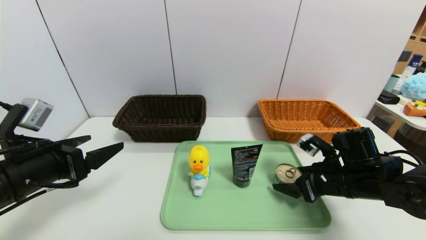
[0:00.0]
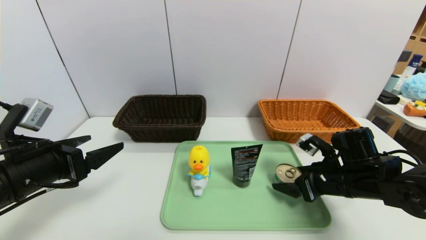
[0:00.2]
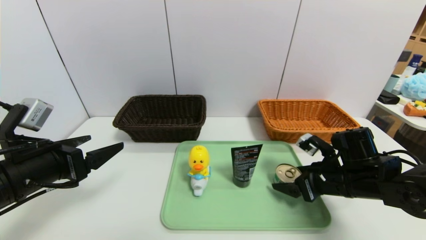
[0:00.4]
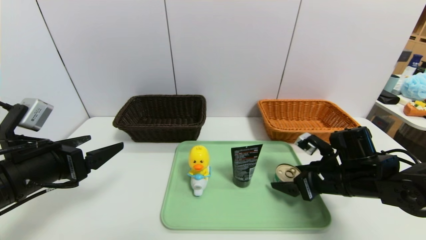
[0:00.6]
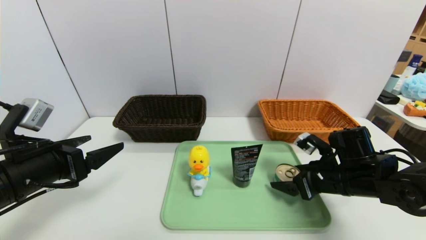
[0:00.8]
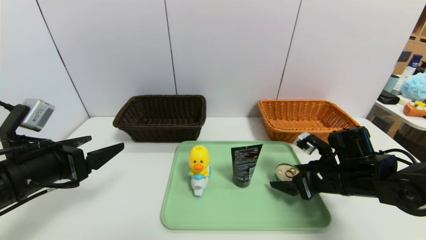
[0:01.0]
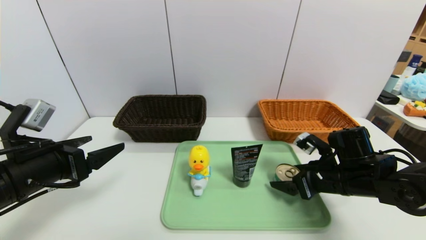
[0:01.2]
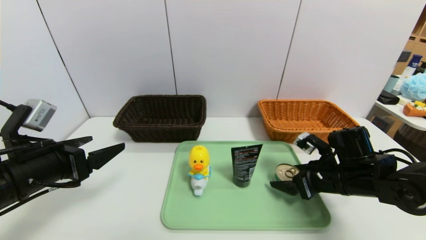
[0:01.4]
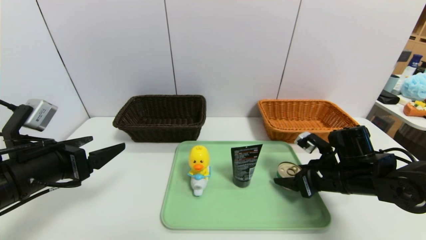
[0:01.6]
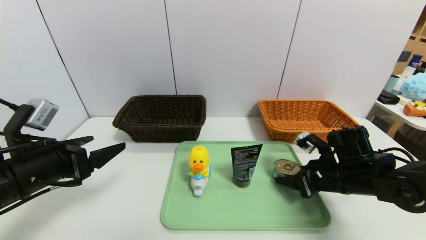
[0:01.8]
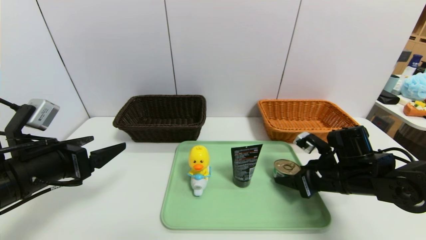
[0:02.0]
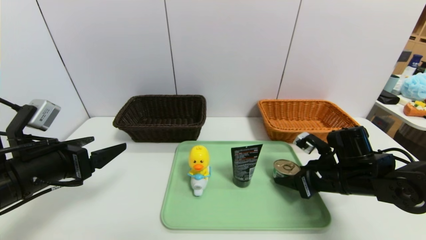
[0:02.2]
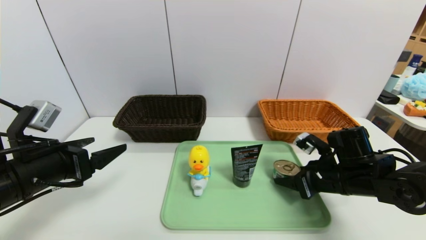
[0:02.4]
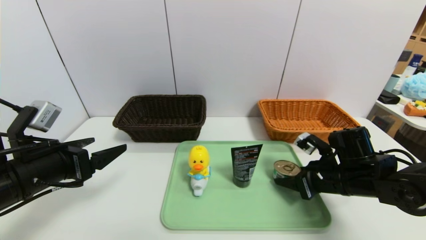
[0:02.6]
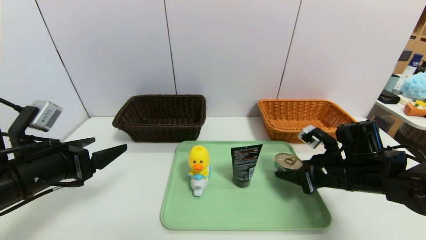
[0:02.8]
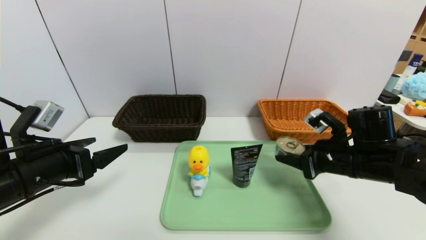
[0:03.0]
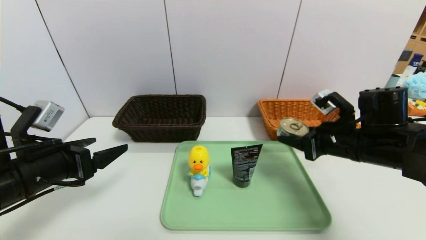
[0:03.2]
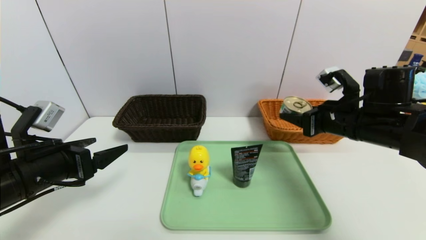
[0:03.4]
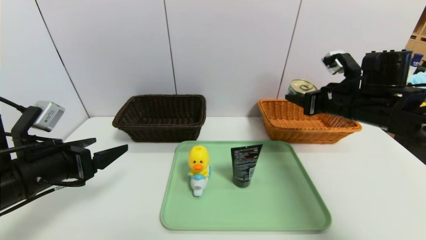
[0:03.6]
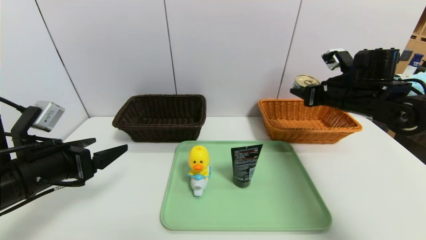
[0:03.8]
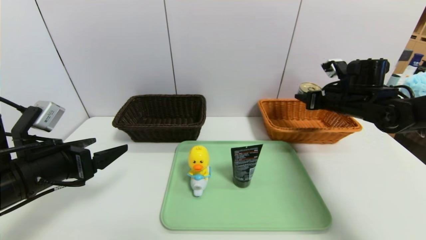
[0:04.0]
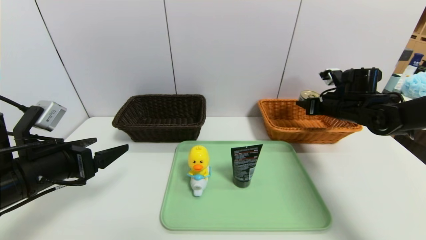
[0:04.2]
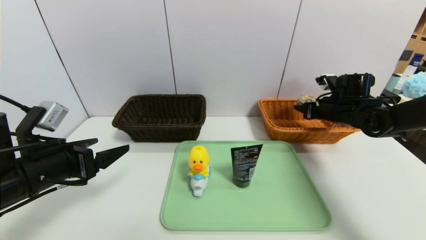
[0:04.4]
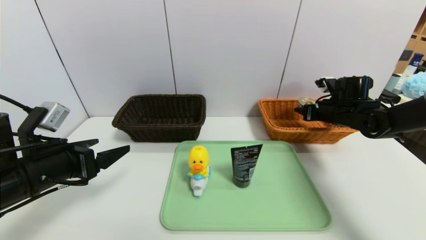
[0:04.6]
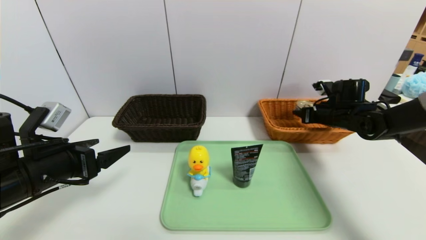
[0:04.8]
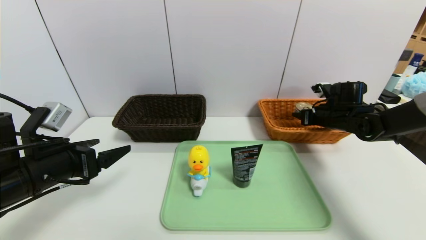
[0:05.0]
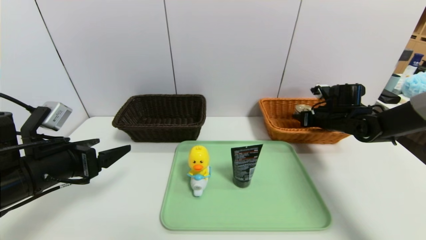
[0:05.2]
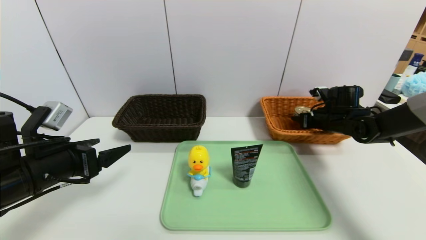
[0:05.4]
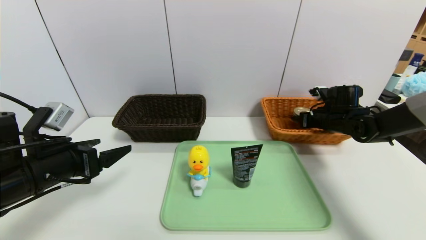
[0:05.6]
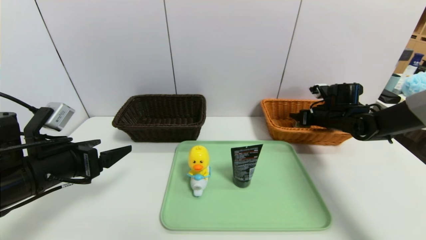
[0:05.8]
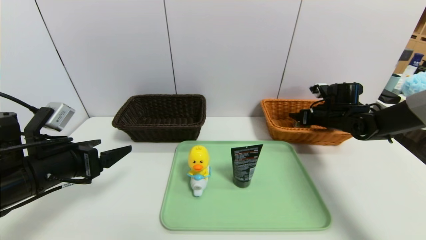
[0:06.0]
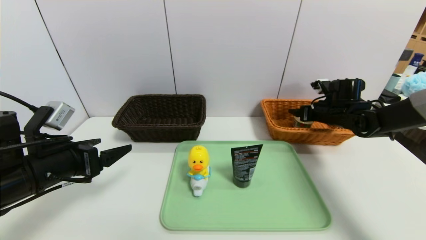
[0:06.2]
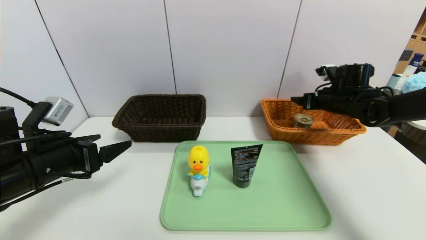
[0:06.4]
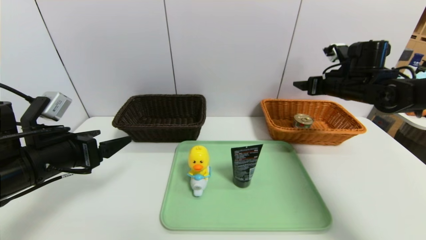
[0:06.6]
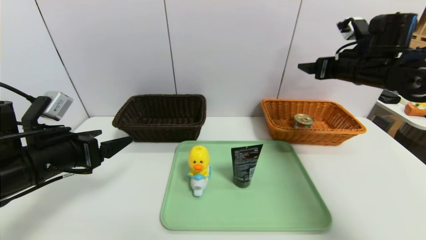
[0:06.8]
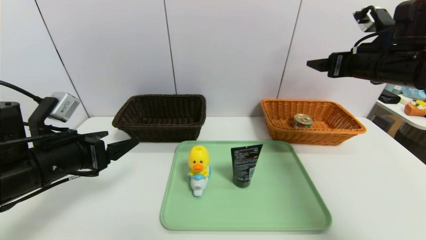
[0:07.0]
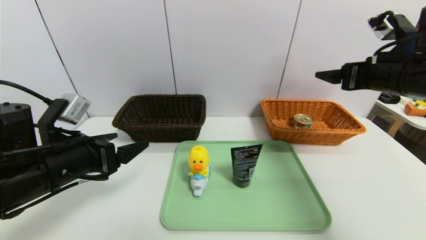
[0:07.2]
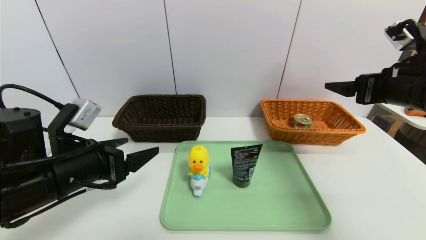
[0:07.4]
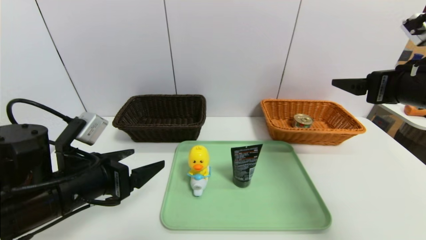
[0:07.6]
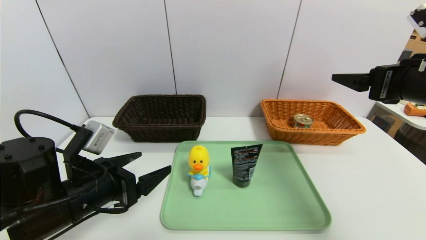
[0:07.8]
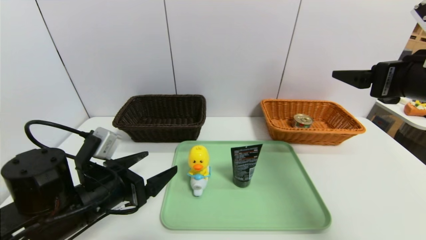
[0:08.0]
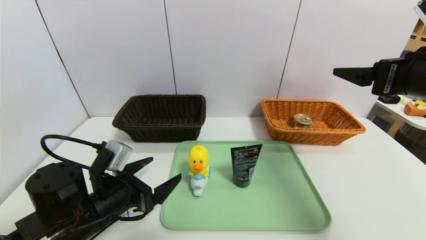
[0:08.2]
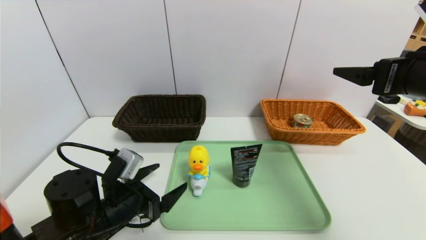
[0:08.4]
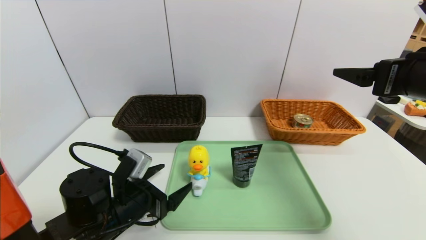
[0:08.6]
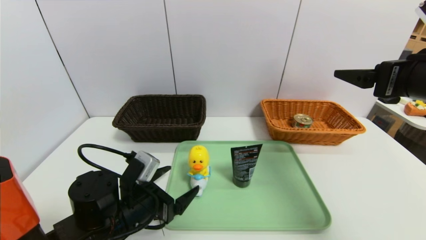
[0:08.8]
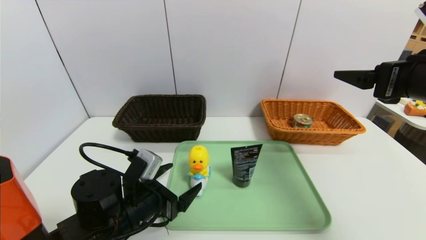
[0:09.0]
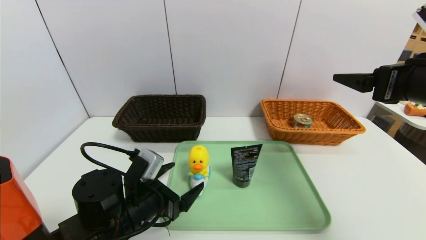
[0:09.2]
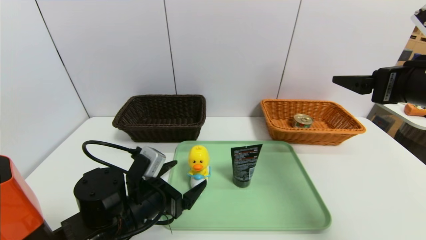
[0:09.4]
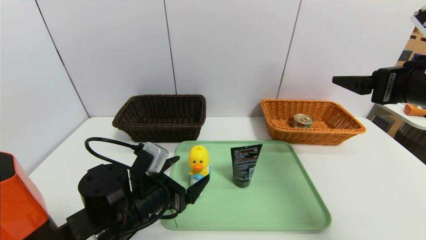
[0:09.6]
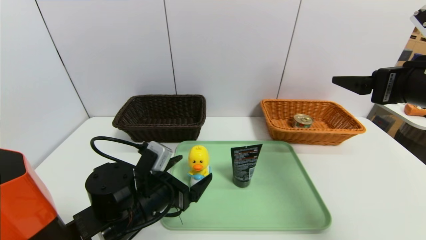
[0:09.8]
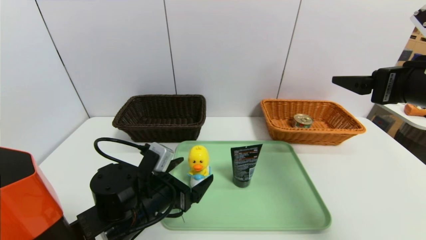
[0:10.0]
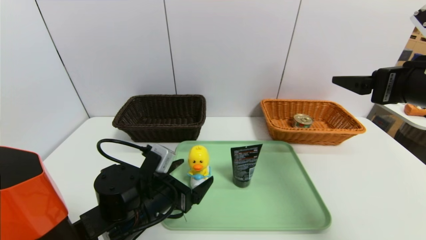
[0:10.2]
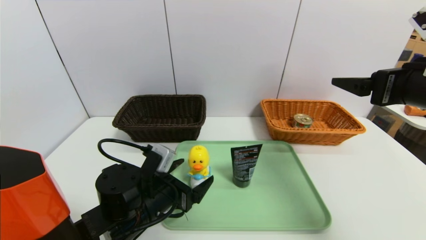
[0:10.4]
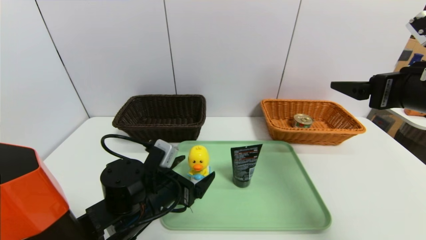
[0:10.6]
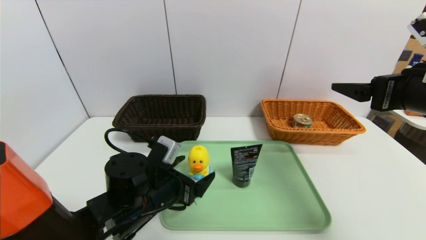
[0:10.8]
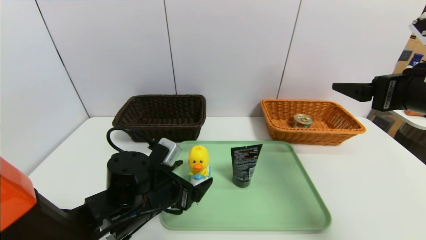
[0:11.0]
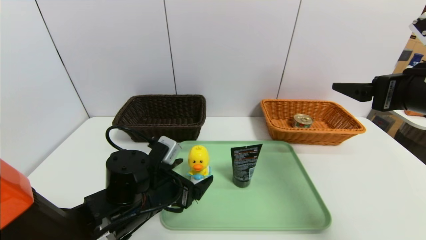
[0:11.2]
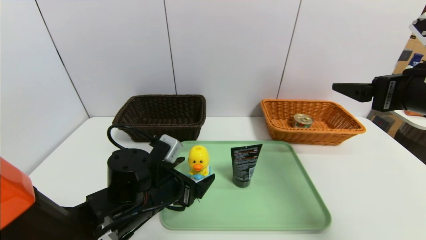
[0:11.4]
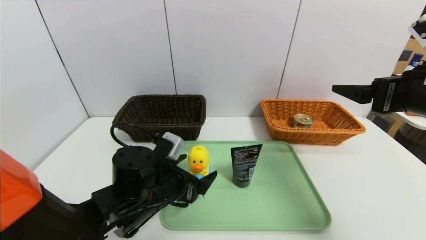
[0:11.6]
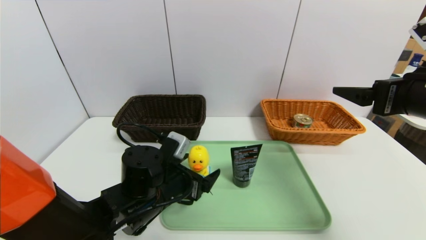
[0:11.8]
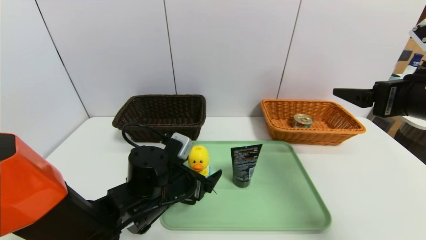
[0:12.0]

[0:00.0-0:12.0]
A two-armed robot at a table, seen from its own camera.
Task of the whole recording: place the food in the right basket with the right gripper, and place the non food items in the left basket with the left gripper.
Step, 0:00.0 to 0:06.0: Grasp the can and put it in the right basket.
0:00.0 to 0:01.6: The right gripper closes.
0:01.6 to 0:03.0: The right gripper heads upward, covering about 5 cm.
0:03.0 to 0:04.4: The right gripper shifts some 15 cm forward and to the right.
0:04.4 to 0:06.0: The right gripper opens its fingers.
0:06.0 to 0:07.6: The right gripper is displaced backward and upward by approximately 25 cm. The left gripper heads to the right, covering roughly 5 cm.
0:07.6 to 0:09.0: The left gripper heads downward and to the right, covering approximately 10 cm.
0:09.0 to 0:10.4: There are only small adjustments of the grippers.
0:10.4 to 0:12.0: There are only small adjustments of the grippers.

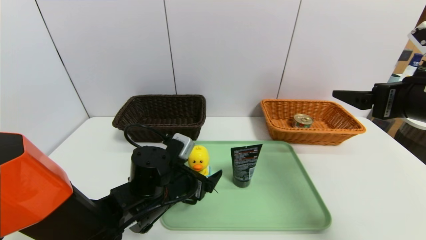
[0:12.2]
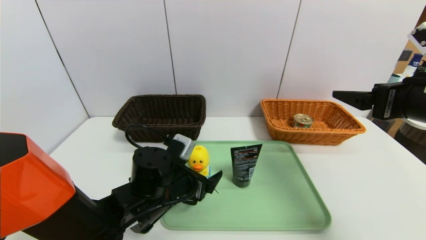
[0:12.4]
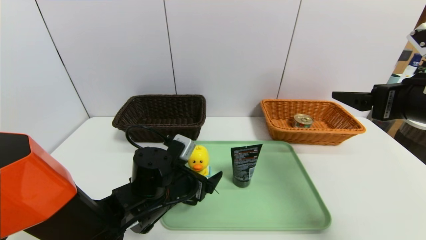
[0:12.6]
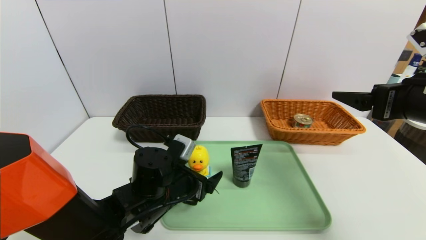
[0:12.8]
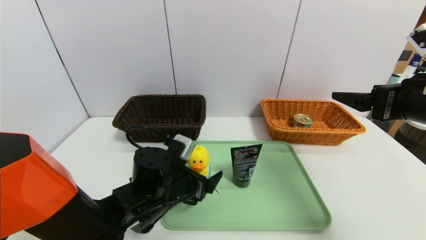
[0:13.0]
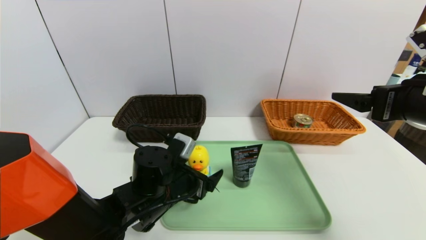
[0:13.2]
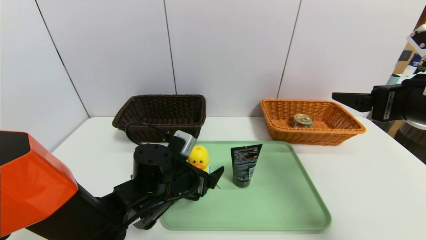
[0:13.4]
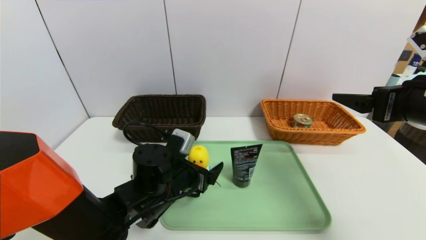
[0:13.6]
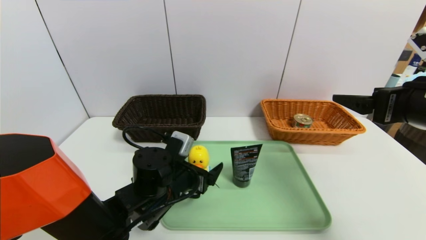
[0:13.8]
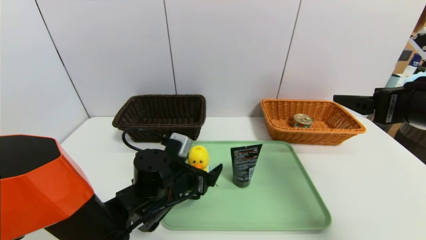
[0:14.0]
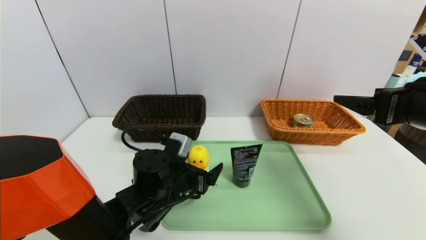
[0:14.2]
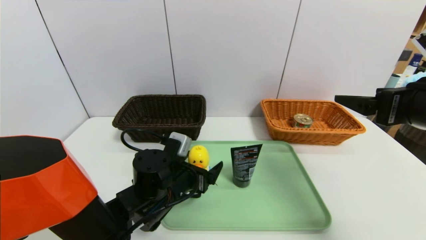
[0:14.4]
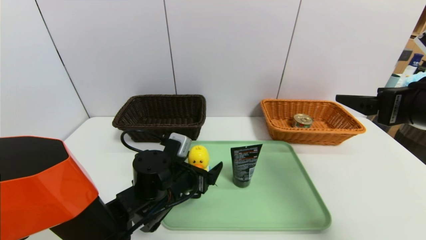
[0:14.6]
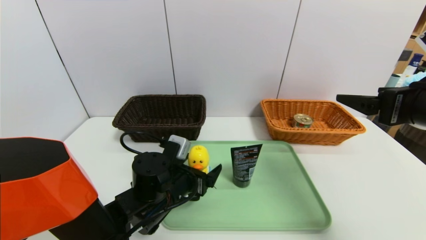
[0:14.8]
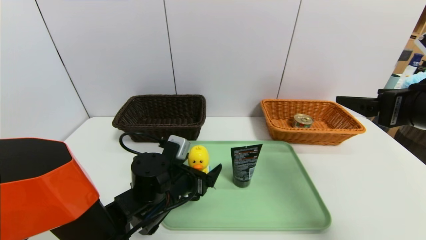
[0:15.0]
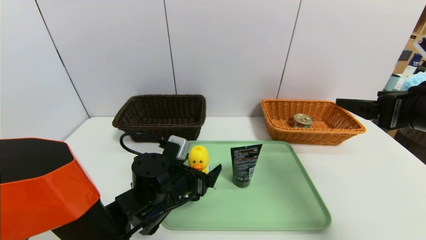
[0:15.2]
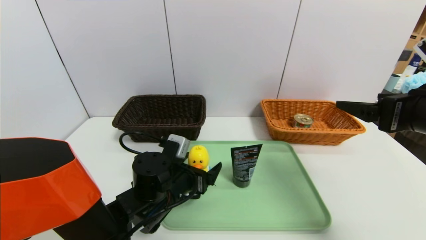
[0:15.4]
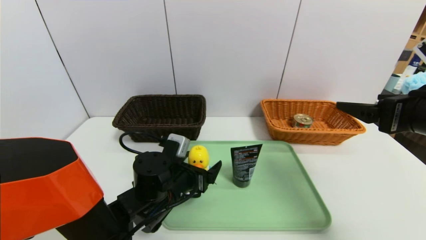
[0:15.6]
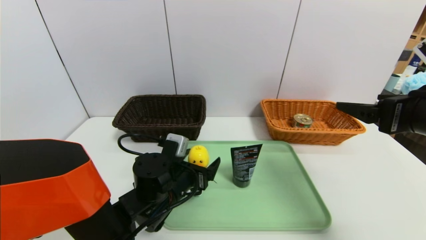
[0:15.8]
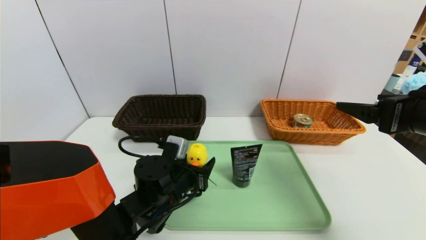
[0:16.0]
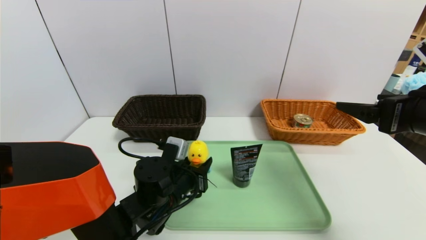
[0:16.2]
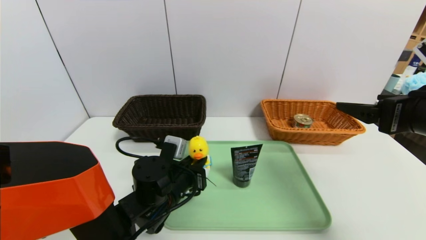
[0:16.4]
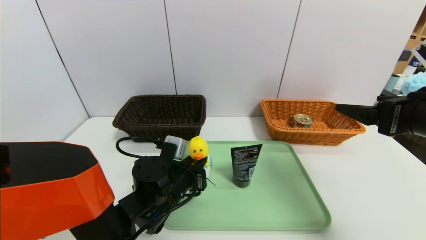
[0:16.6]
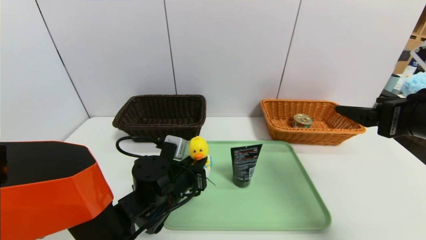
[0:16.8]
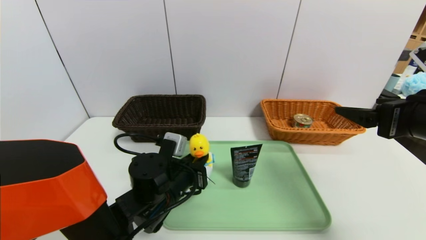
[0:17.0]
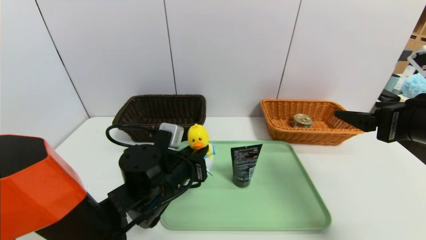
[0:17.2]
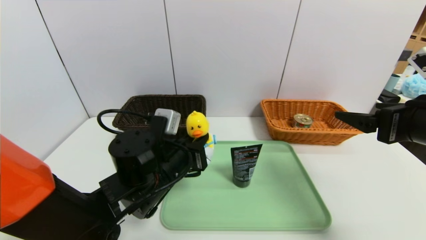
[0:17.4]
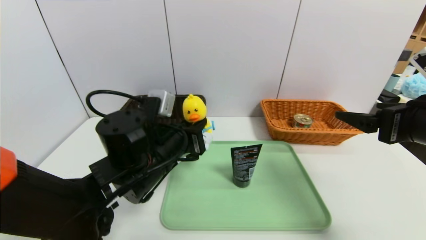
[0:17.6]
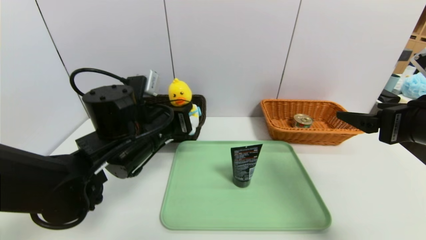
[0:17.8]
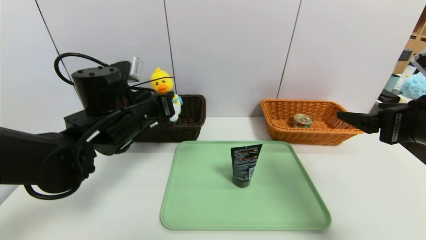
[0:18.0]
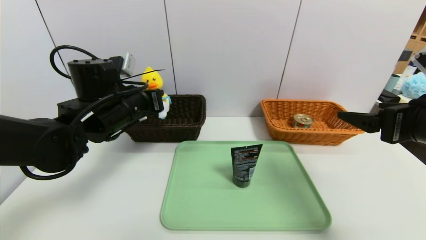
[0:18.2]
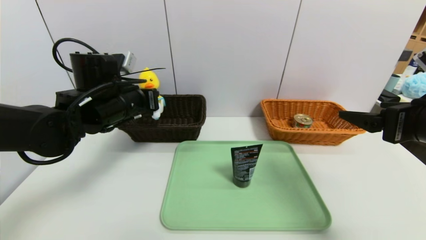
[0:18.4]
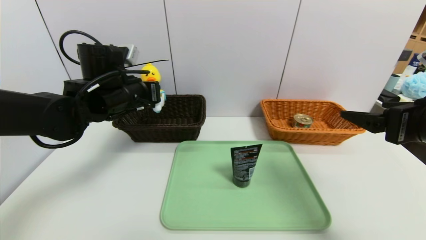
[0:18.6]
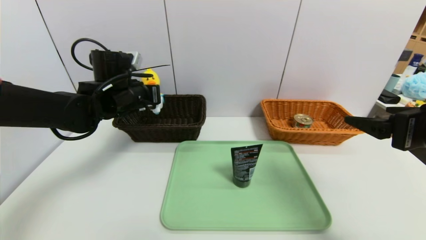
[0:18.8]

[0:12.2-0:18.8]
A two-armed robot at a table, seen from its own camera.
Task of the whole recording: place the food in the right basket with the right gripper, and place the non food items in the left basket with the left gripper.
0:12.2 to 0:13.8: The grippers stay close to where they were, moving slightly.
0:13.8 to 0:15.4: Neither gripper changes place.
0:15.4 to 0:17.2: The left gripper closes up.
0:17.2 to 0:18.8: The left gripper heads forward, upward and to the left, covering some 20 cm.
